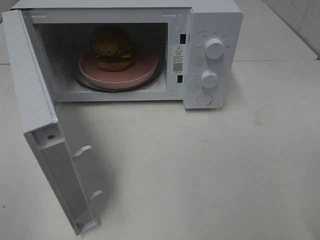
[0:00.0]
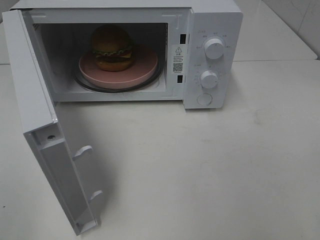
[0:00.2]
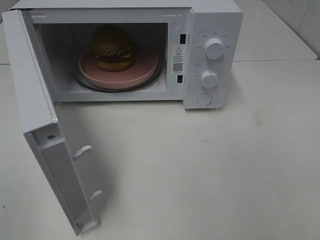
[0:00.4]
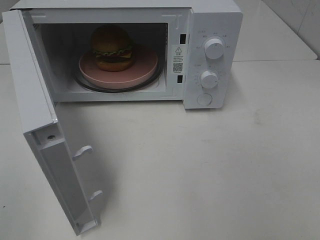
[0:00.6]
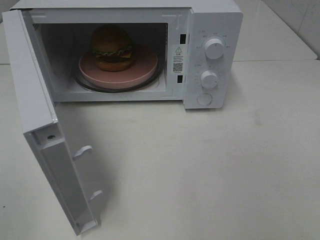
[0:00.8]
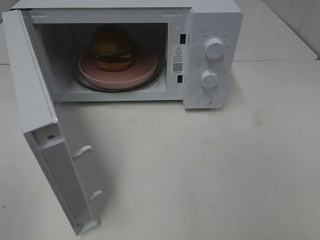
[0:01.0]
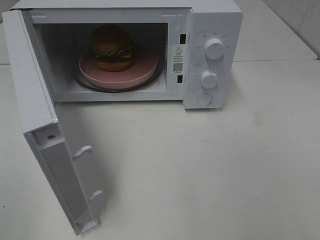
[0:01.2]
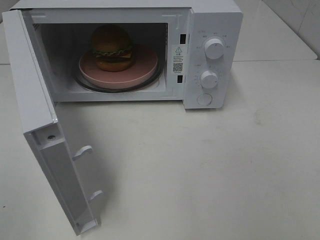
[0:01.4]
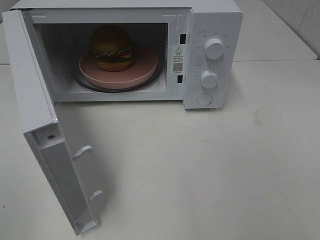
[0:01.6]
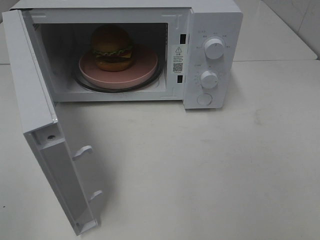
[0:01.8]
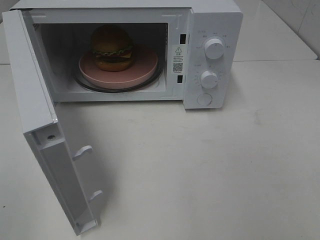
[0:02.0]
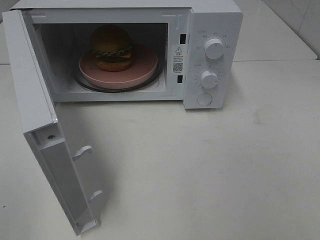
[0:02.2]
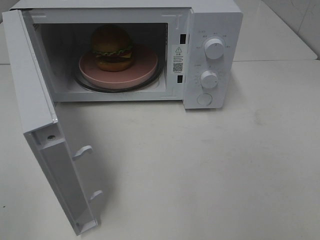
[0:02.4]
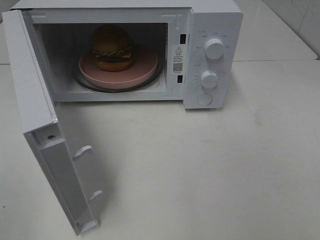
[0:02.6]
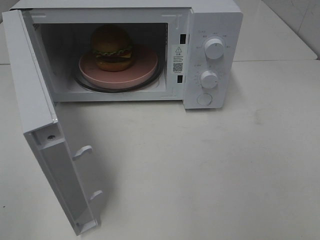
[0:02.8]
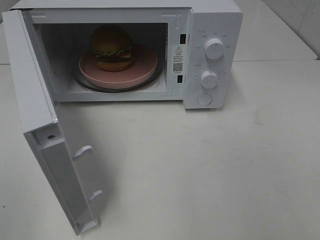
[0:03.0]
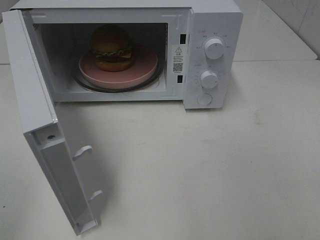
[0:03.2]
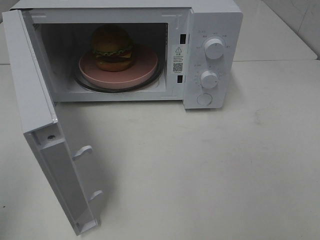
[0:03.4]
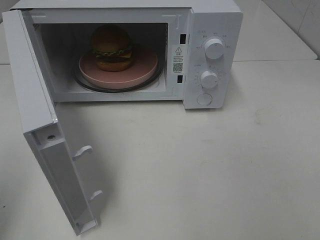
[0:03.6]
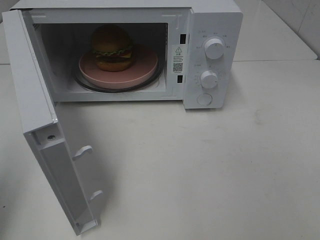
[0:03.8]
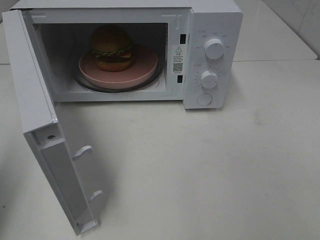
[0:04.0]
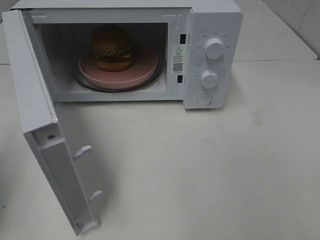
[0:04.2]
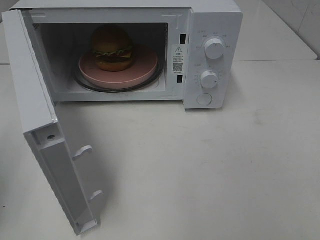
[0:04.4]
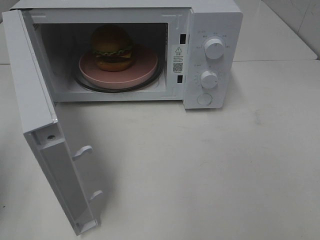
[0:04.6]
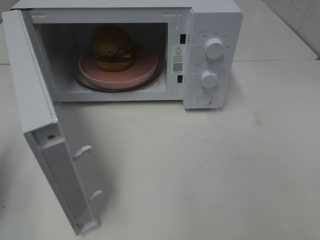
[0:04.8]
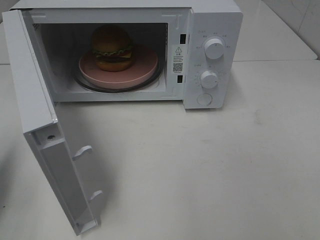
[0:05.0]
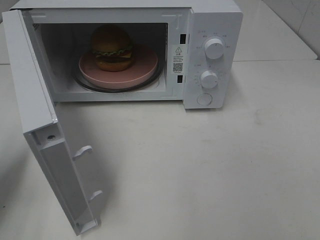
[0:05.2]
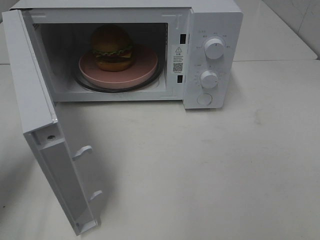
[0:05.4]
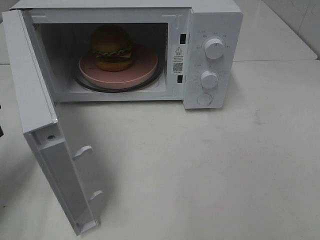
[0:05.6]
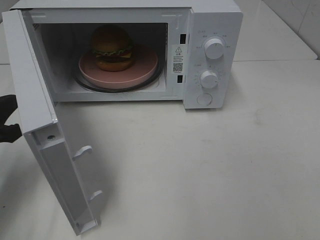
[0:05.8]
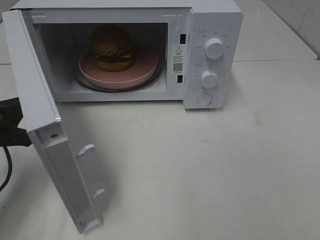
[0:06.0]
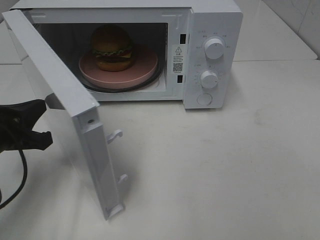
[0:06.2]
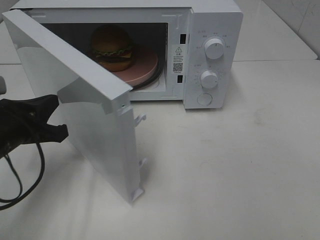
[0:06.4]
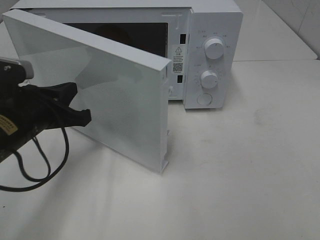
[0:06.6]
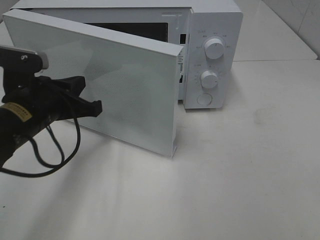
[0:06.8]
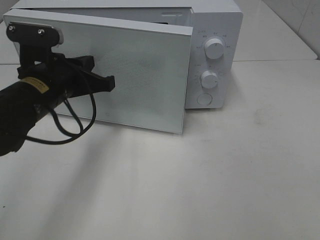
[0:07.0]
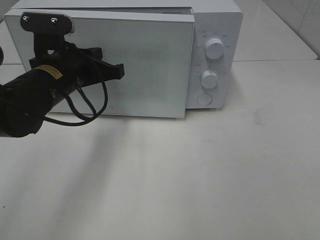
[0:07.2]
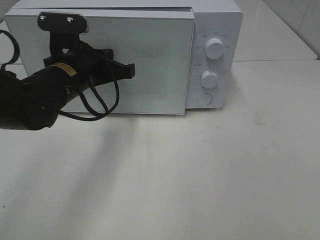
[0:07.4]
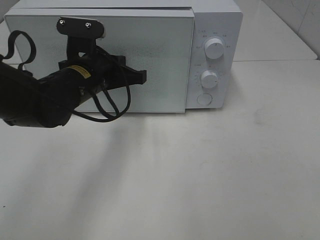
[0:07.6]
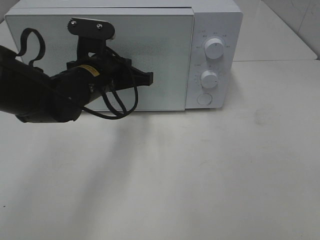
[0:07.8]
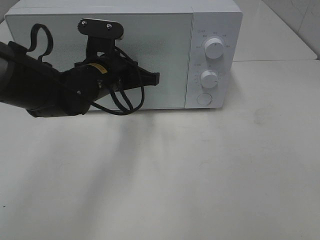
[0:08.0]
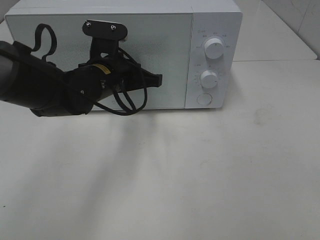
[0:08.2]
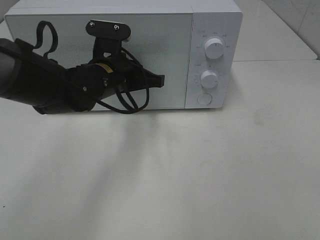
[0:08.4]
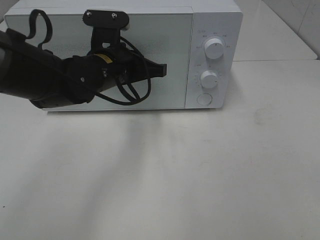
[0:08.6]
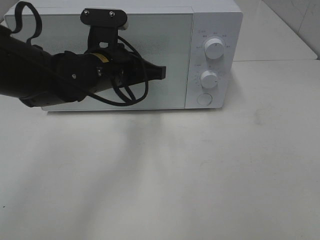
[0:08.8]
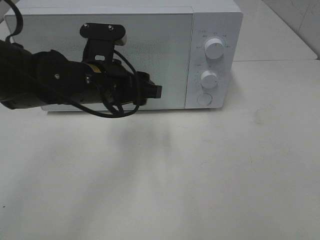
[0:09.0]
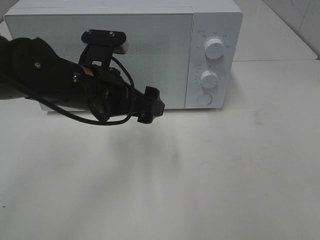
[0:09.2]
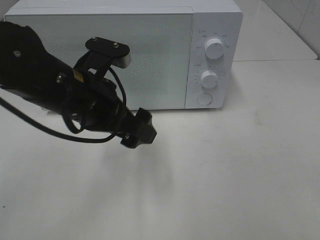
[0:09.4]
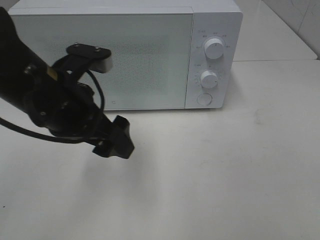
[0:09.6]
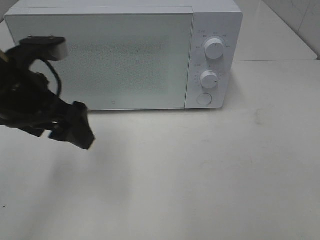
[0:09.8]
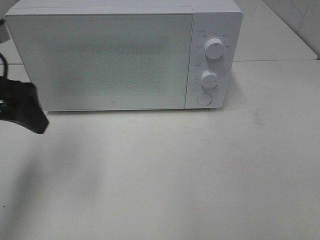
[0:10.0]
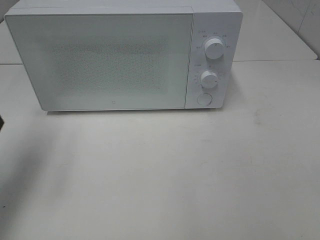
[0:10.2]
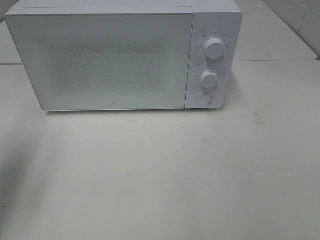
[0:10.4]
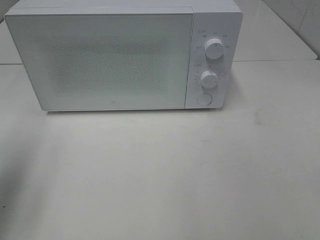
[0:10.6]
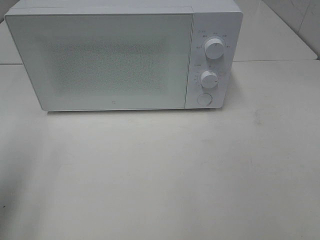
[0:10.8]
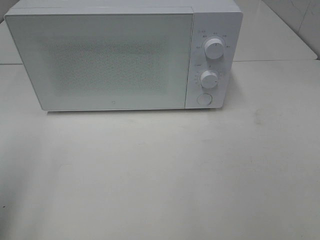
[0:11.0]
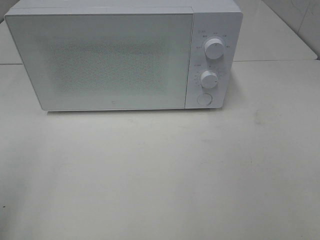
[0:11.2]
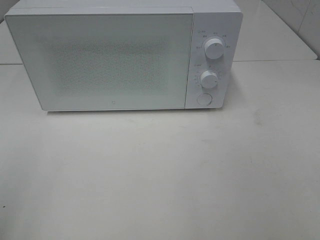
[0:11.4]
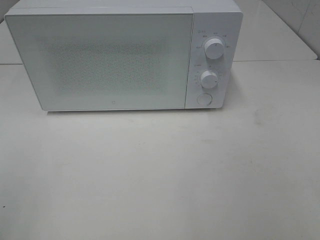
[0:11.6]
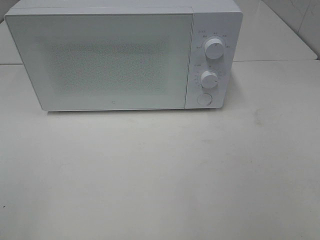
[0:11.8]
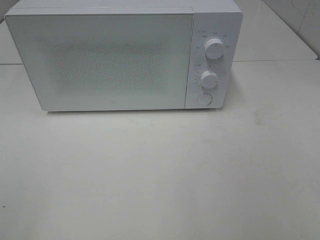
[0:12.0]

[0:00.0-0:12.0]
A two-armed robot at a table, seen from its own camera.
Task of the whole recording: Heat the burger.
Step, 0:00.0 to 0:09.2: Left hand: close the microwave door.
0:04.4 to 0:06.0: The left gripper shifts roughly 15 cm downward, forward and to the right.
0:06.0 to 0:07.6: The left gripper shifts about 20 cm to the right and forward.
0:07.6 to 0:09.0: The left gripper opens.
0:09.0 to 0:10.4: The left gripper heads to the left and upward, covering about 25 cm.
0:10.4 to 0:12.0: The left gripper shifts about 20 cm backward.

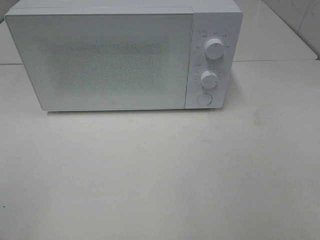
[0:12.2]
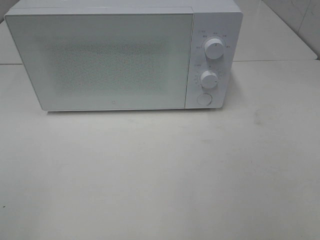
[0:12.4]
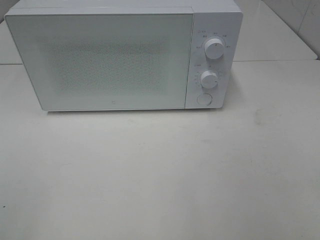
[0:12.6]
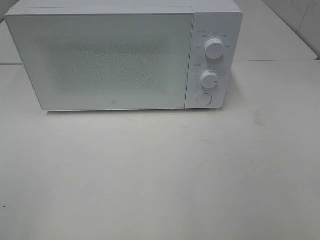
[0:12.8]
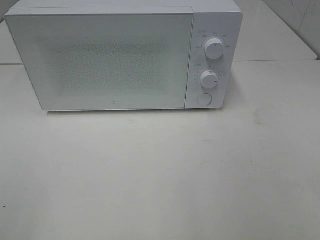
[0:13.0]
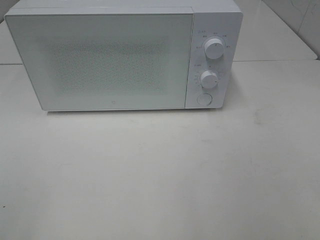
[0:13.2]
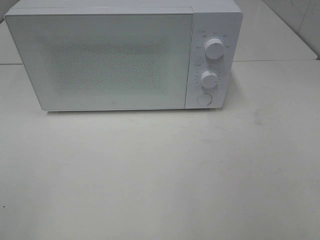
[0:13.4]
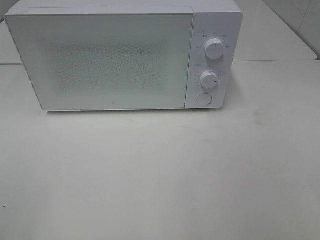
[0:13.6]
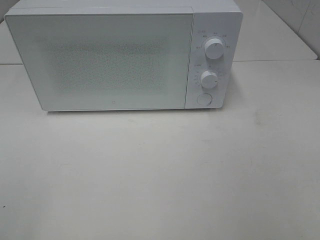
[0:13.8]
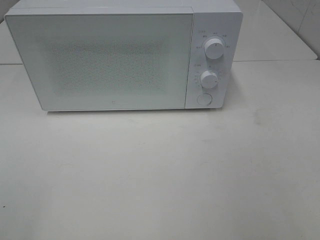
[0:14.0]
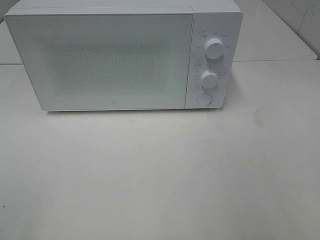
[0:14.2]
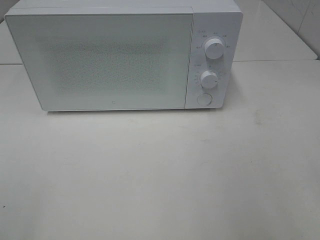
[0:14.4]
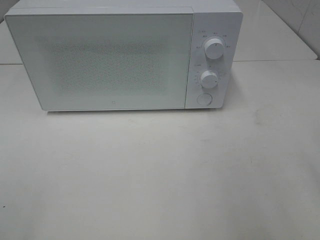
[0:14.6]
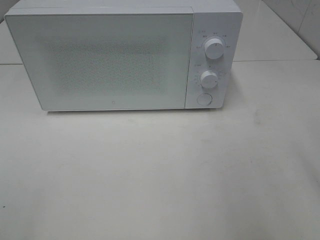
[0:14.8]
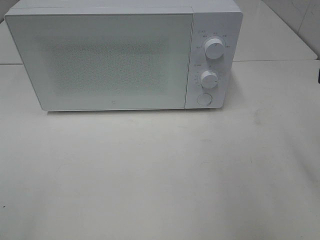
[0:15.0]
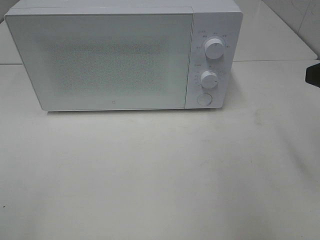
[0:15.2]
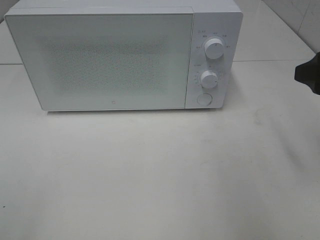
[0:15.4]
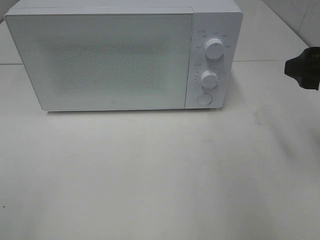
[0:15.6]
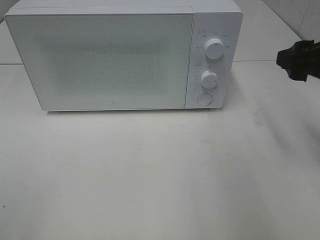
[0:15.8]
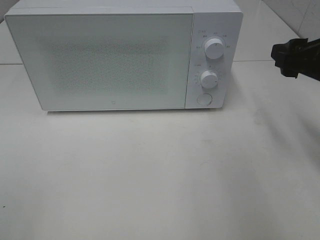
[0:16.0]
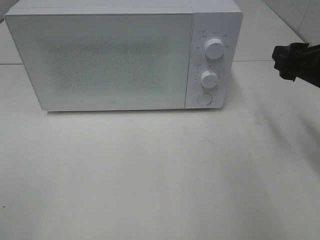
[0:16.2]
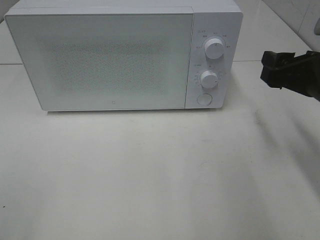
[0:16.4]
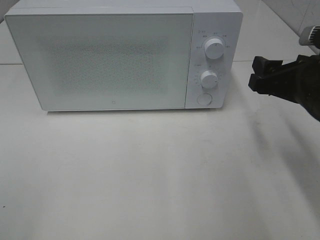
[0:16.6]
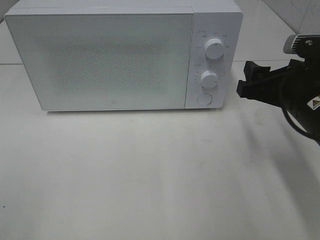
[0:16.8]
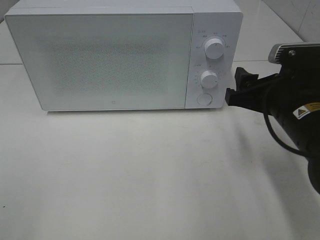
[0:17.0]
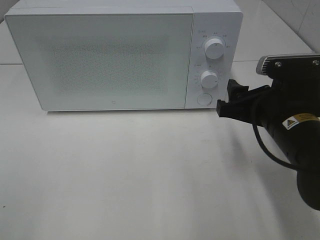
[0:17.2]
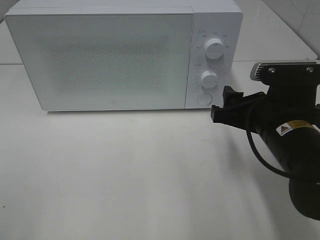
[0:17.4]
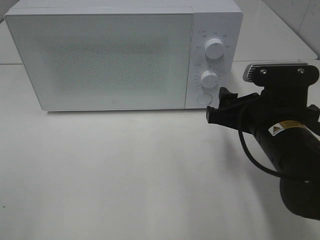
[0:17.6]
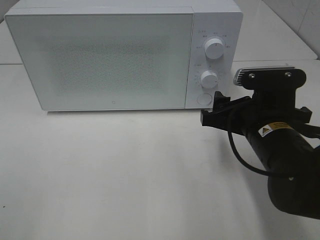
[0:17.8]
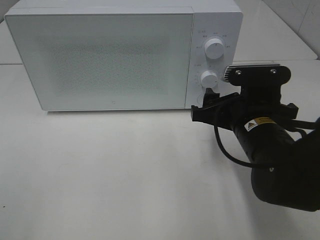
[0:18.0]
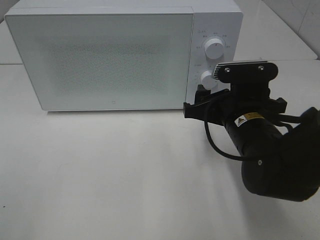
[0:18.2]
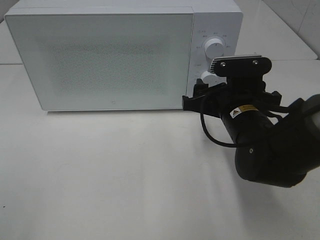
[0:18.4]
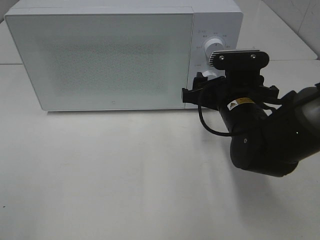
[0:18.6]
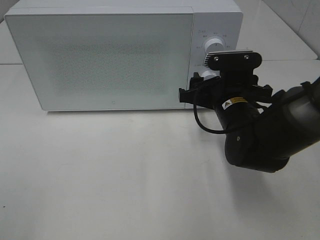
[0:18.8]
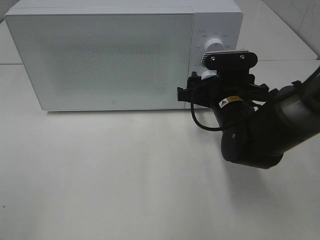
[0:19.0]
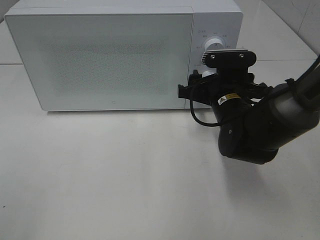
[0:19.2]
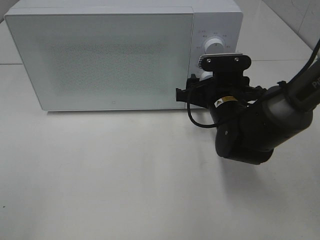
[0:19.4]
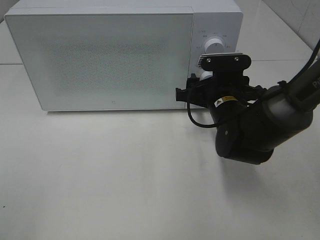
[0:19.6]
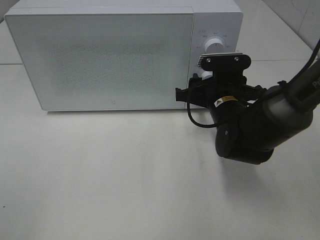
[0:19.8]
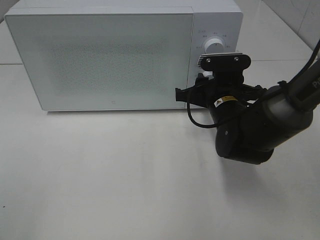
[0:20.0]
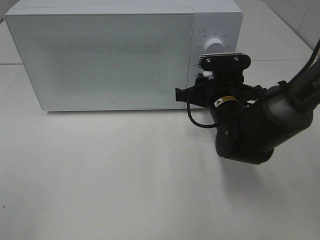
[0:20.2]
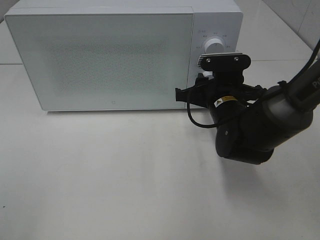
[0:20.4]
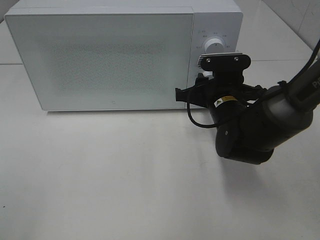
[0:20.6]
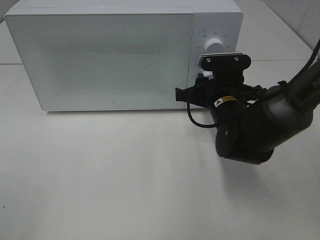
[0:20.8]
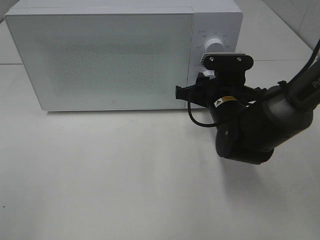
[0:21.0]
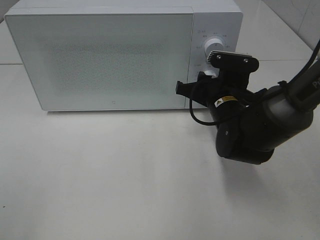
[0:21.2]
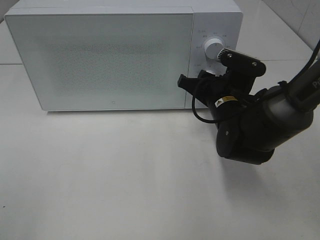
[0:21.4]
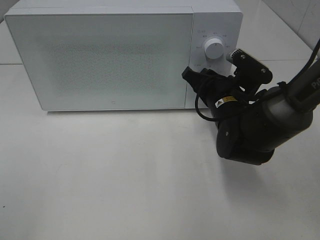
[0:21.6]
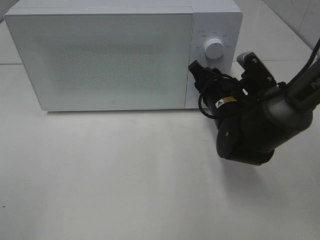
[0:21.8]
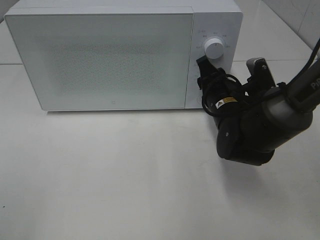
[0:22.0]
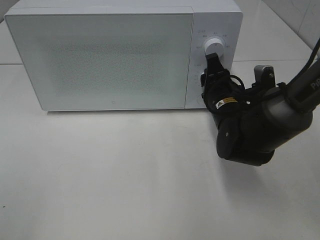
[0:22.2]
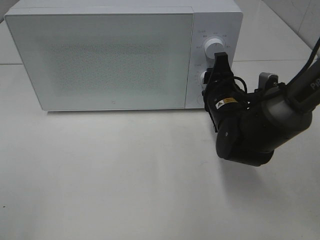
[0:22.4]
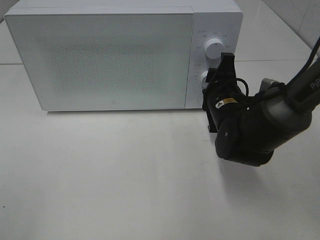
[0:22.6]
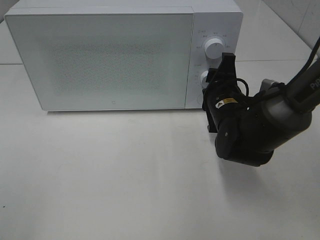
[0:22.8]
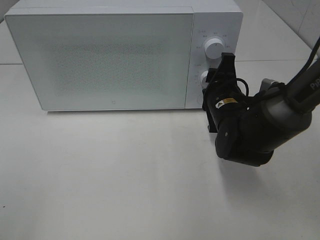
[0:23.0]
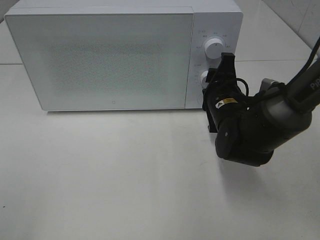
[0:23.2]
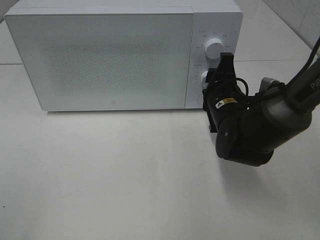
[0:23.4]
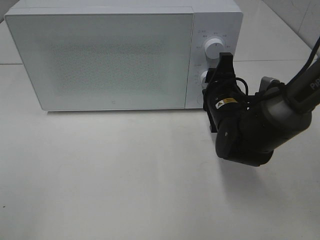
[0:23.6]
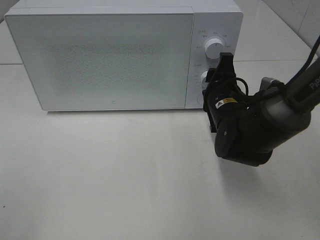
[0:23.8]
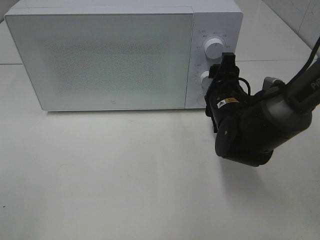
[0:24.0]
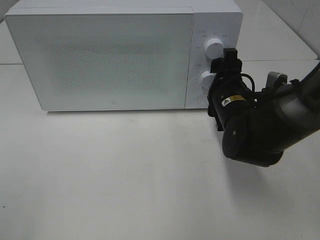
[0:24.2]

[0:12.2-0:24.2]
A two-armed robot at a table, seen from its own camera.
Task of the whole recording: Heat the burger.
Step, 0:12.2 to 0:24.2: Right hand: twist timer button.
0:15.2 to 0:16.6: The right gripper shifts about 10 cm downward and forward.
0:16.6 to 0:18.2: The right gripper goes about 10 cm to the left and downward.
0:18.2 to 0:19.8: The right gripper goes some 5 cm forward.
0:19.8 to 0:21.2: The grippers move only a little.
0:22.6 to 0:24.2: The grippers move only a little.
